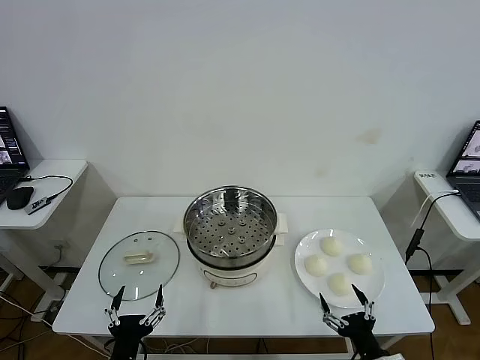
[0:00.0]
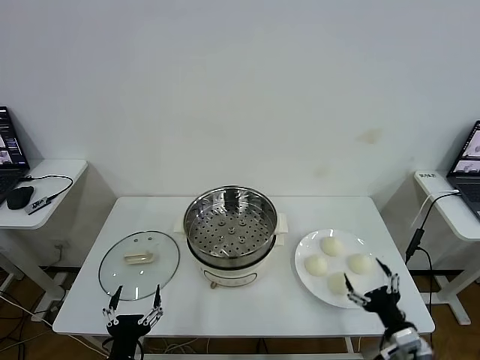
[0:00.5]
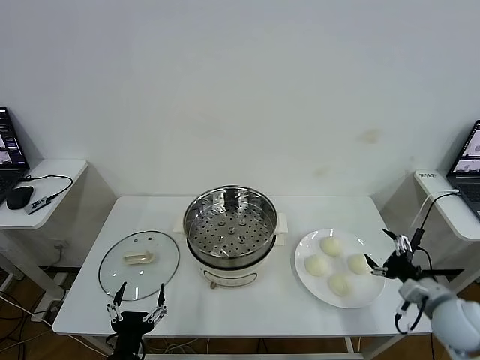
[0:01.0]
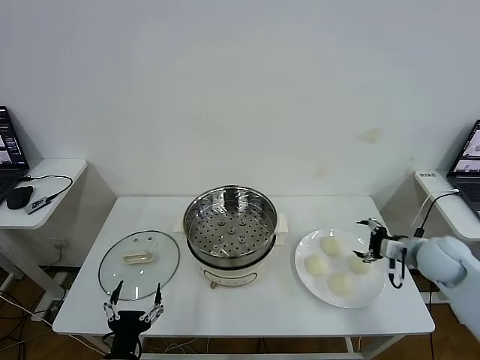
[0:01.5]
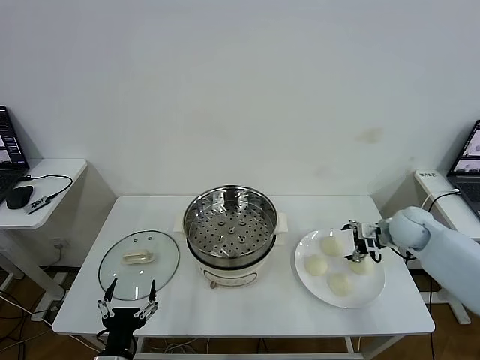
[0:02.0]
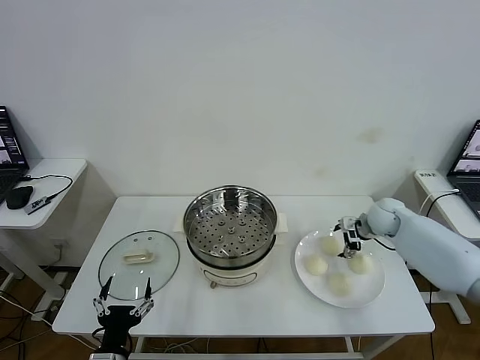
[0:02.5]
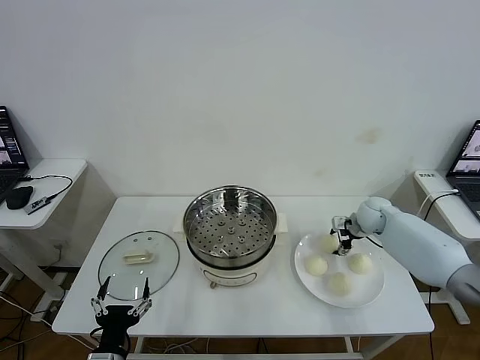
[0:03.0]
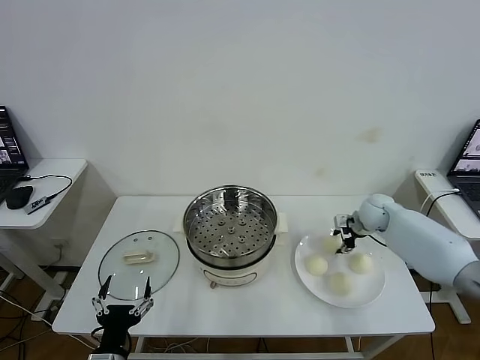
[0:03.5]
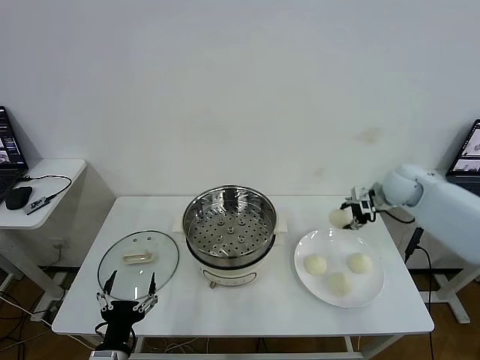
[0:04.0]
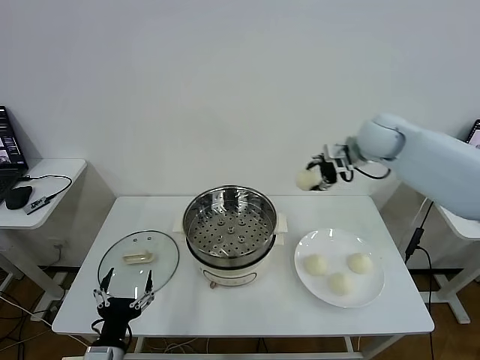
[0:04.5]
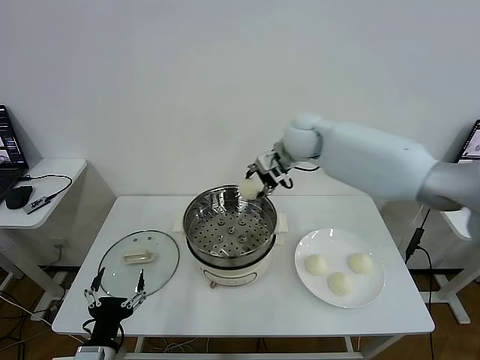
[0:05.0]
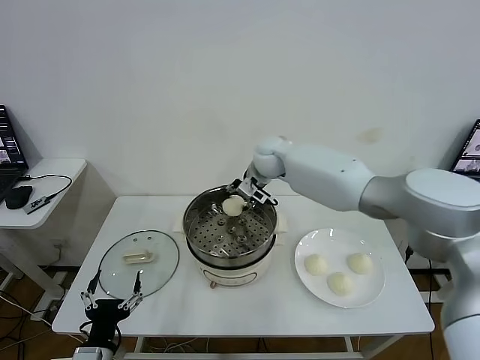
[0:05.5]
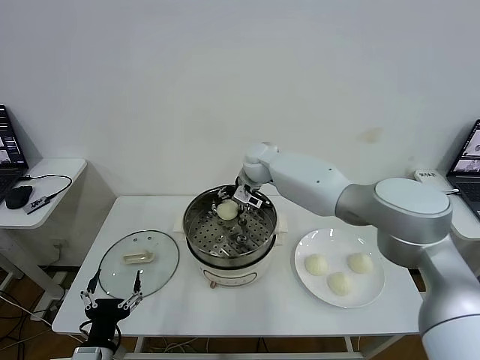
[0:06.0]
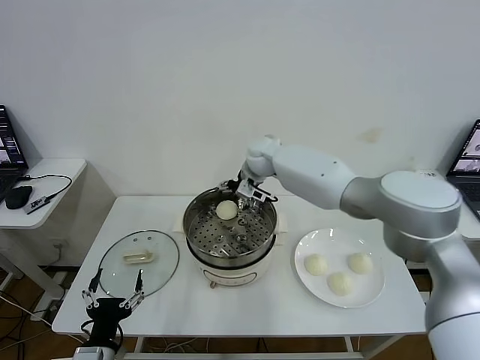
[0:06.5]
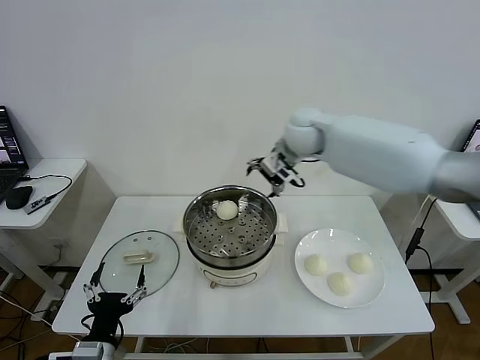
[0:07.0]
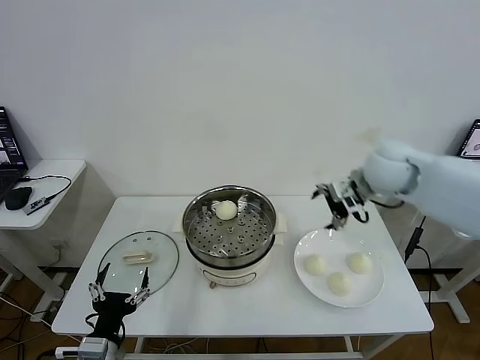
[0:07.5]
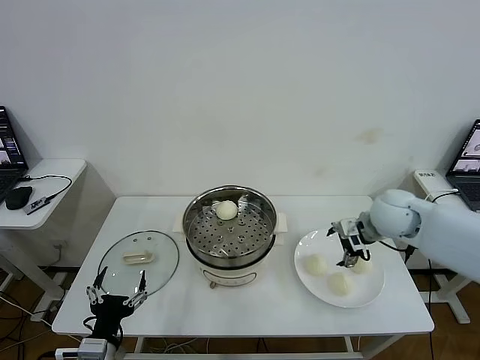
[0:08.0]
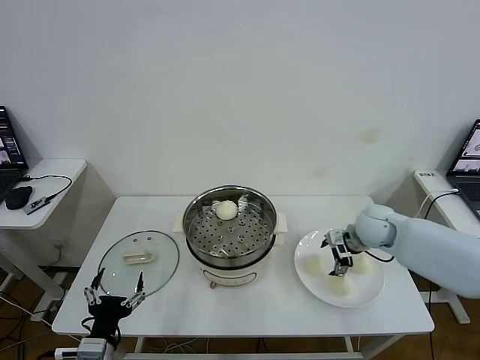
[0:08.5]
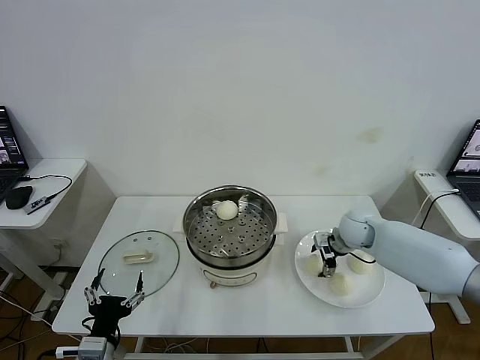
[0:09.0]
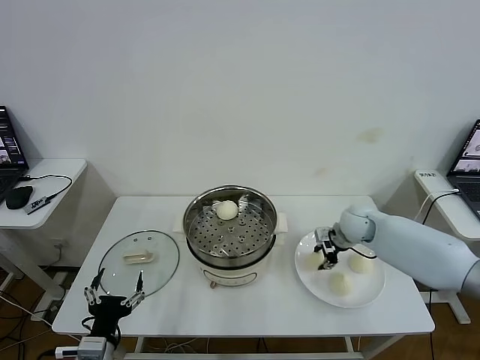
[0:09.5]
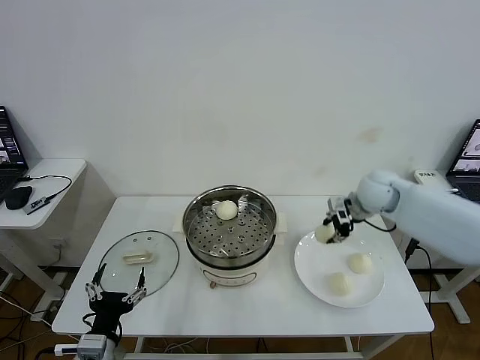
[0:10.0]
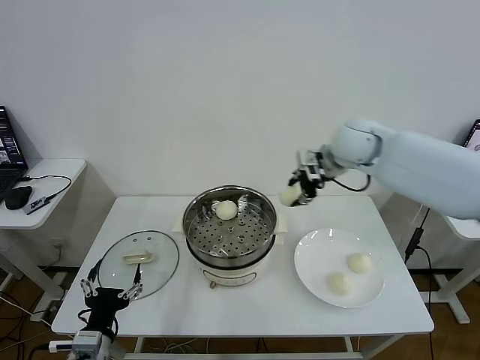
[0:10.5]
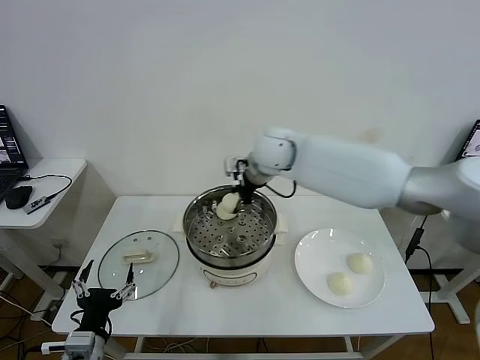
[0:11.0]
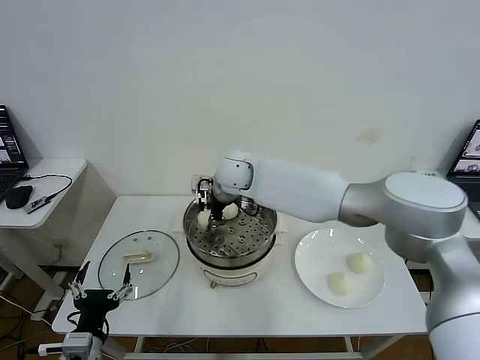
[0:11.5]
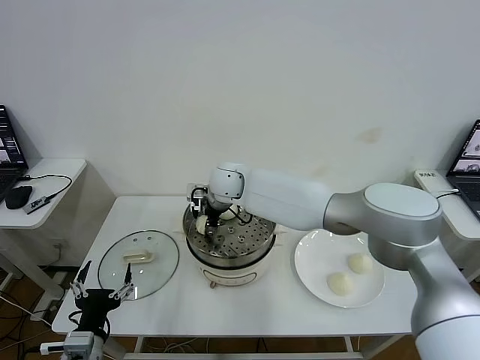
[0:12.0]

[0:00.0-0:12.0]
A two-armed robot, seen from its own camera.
Task of the whole recording: take steamed baozi put them in steamer then cover it.
Step, 0:00.0 to 0:03.0: Grasp the baozi in the plate with right gripper.
Step, 0:03.5 to 0:06.0: Place the baozi on the steamer with right gripper.
Step, 0:06.5 to 0:09.0: Grasp the baozi in the plate with right gripper.
0:02.0 to 0:04.0: The right gripper travels upward and forward by approximately 10 cm, and closes up.
0:04.0 to 0:06.0: The right gripper moves to the left, about 35 cm.
0:06.0 to 0:08.0: The right gripper is displaced to the right and backward by roughly 30 cm, and opens its fingers.
0:08.0 to 0:10.0: The right gripper travels forward by some 5 cm, reaches some 10 cm downward, then returns, and closes.
0:10.0 to 0:12.0: The right gripper shifts some 35 cm to the left.

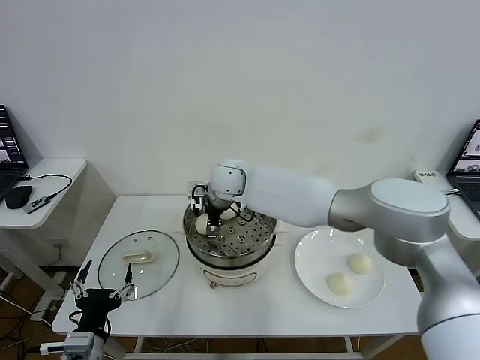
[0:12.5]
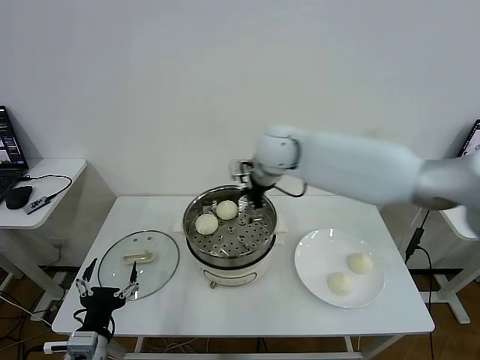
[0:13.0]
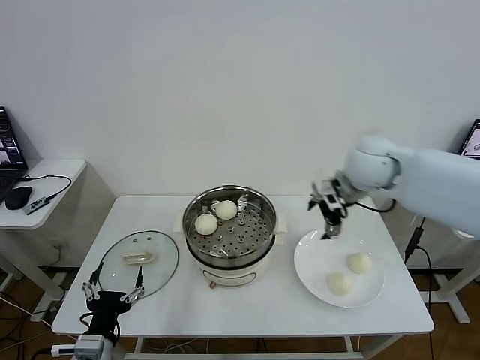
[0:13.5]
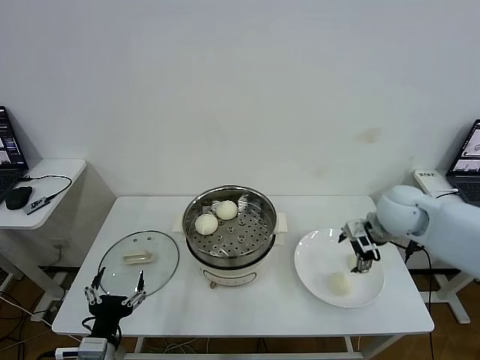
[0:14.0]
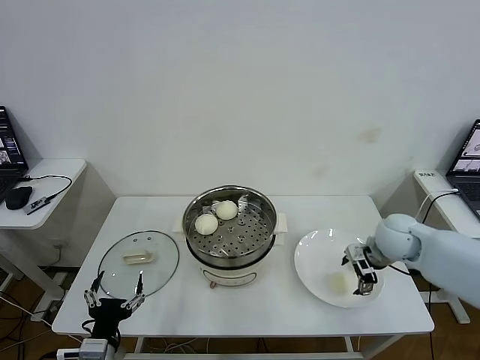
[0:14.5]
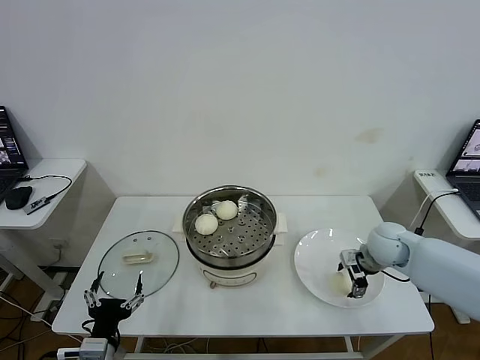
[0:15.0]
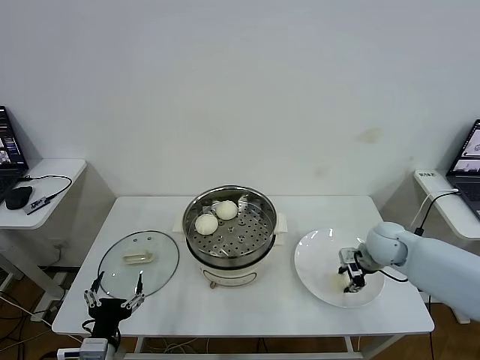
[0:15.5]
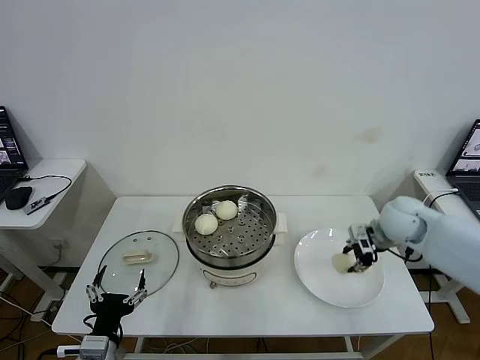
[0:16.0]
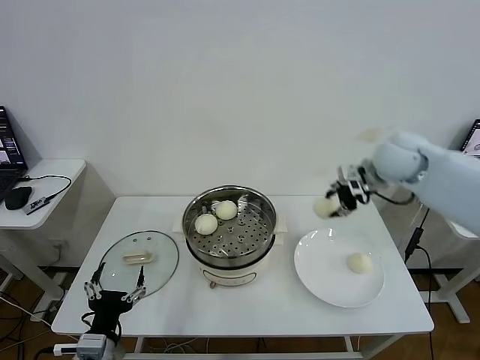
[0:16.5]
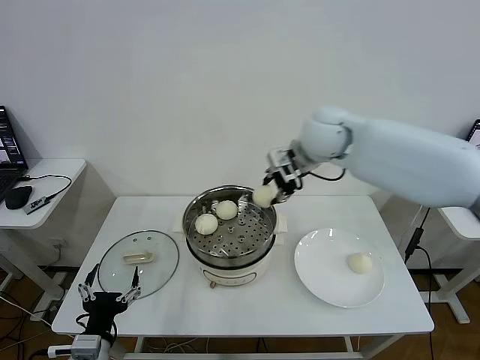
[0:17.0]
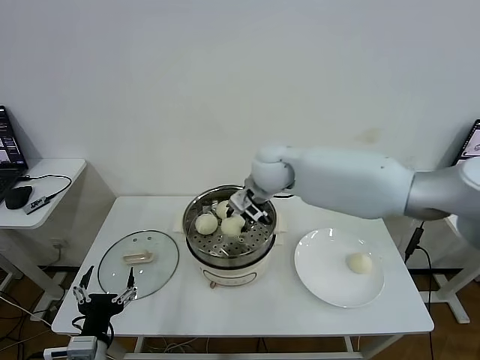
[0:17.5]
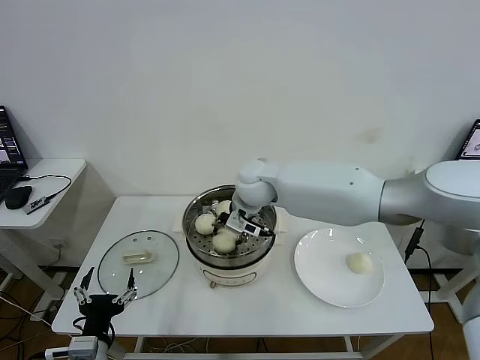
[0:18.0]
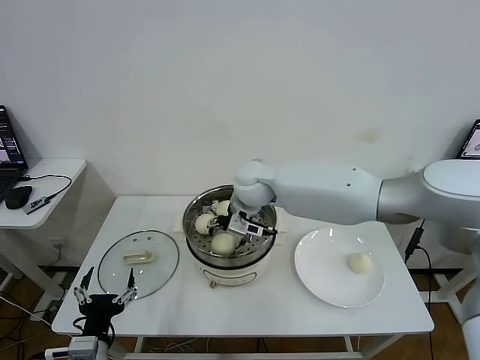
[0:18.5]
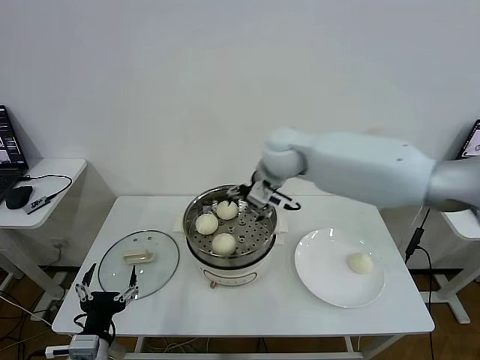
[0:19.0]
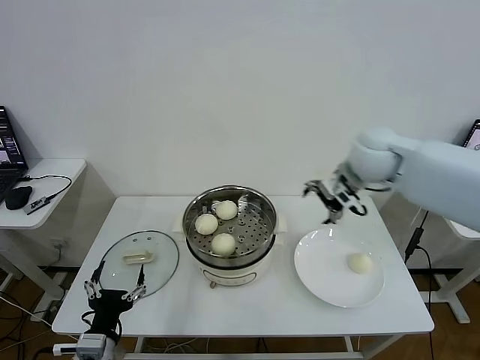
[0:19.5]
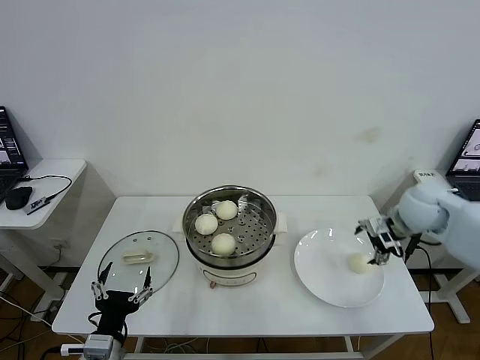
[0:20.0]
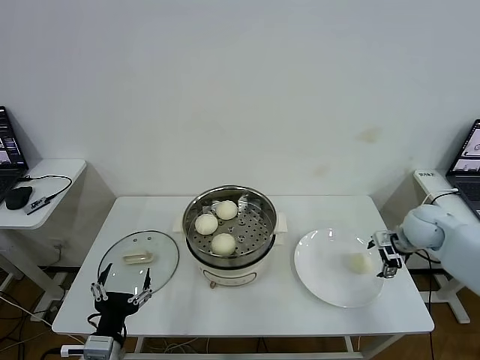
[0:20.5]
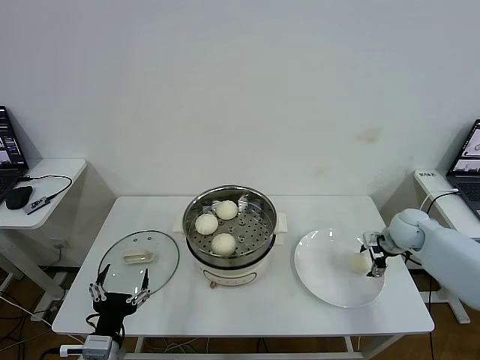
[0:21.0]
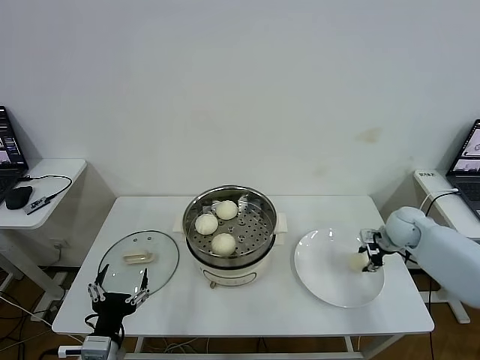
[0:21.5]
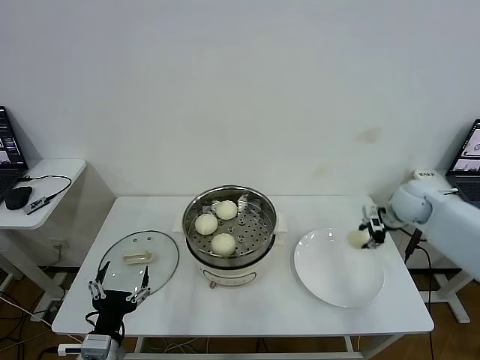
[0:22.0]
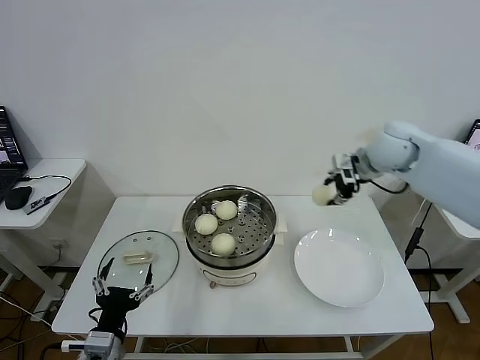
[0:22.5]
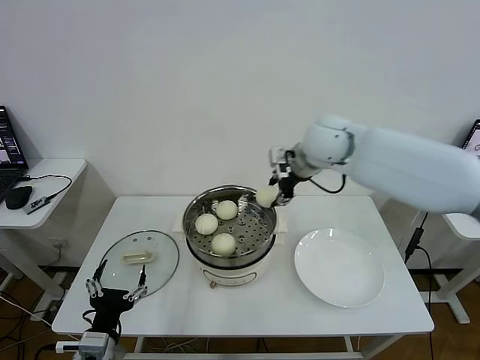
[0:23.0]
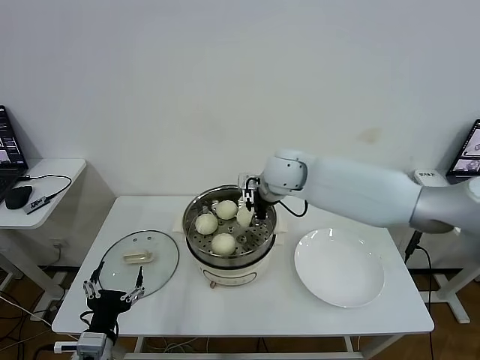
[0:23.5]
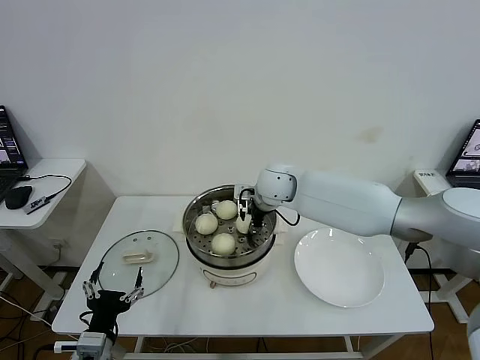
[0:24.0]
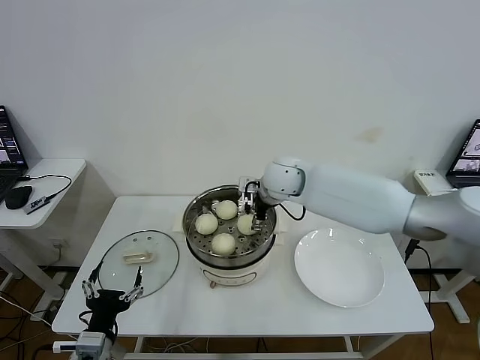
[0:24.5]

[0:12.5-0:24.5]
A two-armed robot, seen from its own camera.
Task of the whole recording: take steamed baozi put them in steamer then cover it.
Step, 0:13.0 to 0:15.5: Grasp the baozi in the plate with right gripper.
Step, 0:16.0 to 0:18.5: Place the baozi on the steamer with right gripper.
Step, 0:19.0 to 0:21.5: Grasp the baozi in the plate with right gripper.
Step, 0:22.0 to 0:24.0: Place the baozi on the steamer with right gripper.
0:12.5 to 0:14.5: The right gripper shifts roughly 40 cm to the right.
0:14.5 to 0:16.5: The right gripper shifts about 20 cm upward and forward, and closes.
0:16.5 to 0:18.5: The right gripper shifts roughly 30 cm to the left, and opens its fingers.
0:18.5 to 0:20.5: The right gripper goes approximately 40 cm to the right.
0:20.5 to 0:22.5: The right gripper travels upward and to the left by some 20 cm, and closes.
0:22.5 to 0:24.5: The right gripper goes approximately 20 cm to the left, and opens up.

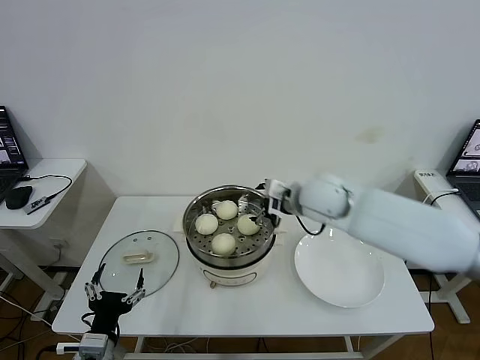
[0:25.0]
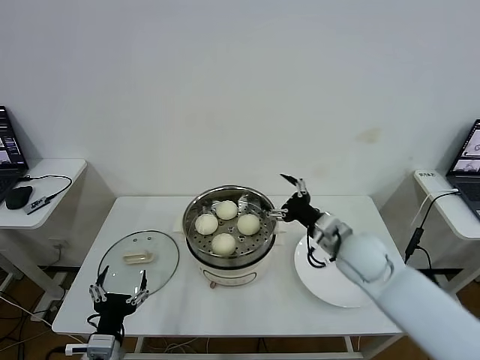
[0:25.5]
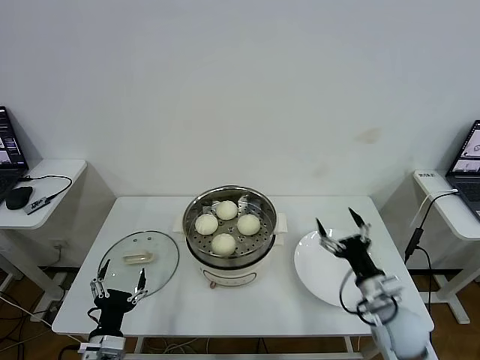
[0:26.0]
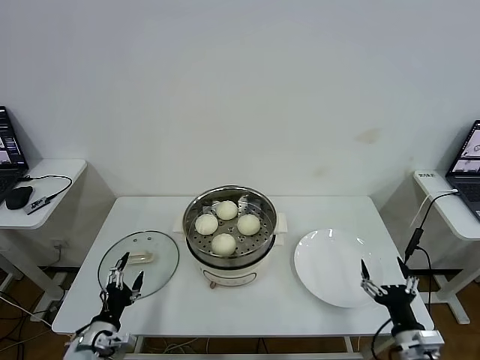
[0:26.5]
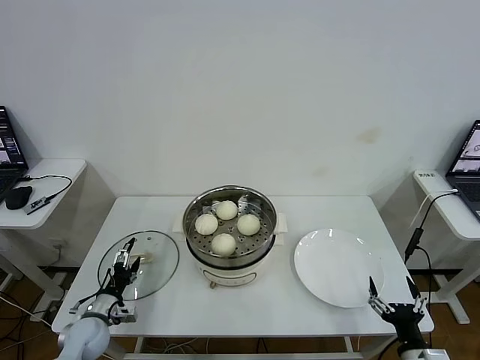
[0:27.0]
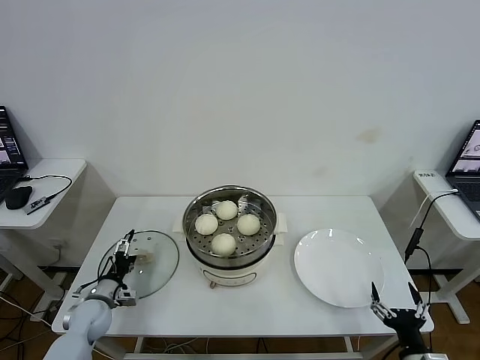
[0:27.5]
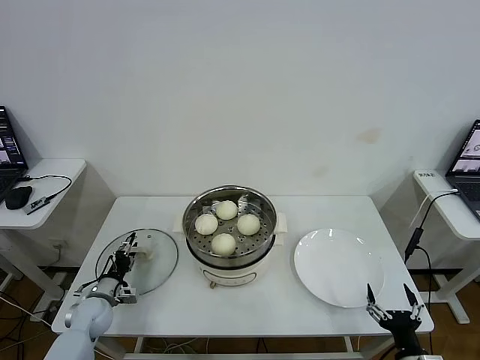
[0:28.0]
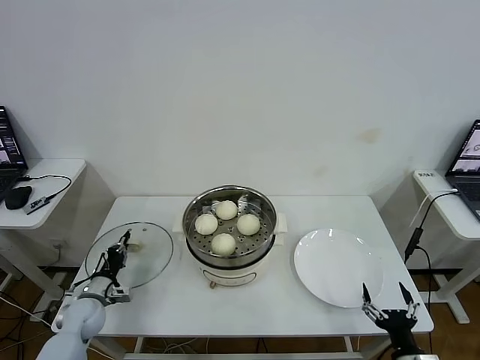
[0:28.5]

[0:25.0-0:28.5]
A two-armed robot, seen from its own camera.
Task of the whole recording: take steamed baozi put them in steamer then cover it.
Step, 0:25.0 to 0:28.5: Grasp the pot lid with left gripper.
0:25.0 to 0:27.0: The right gripper moves backward, downward and to the right, roughly 50 cm. Meanwhile the left gripper travels forward, downward and to the left by approximately 20 cm.
0:27.0 to 0:28.5: The left gripper shifts approximately 5 cm forward, and closes its fingers.
